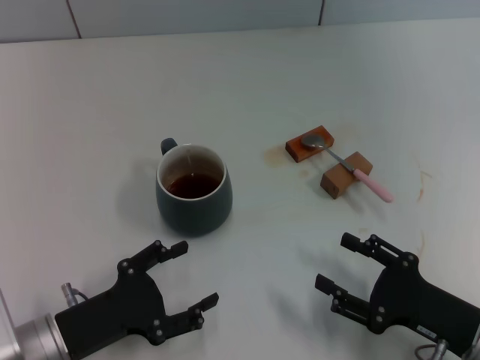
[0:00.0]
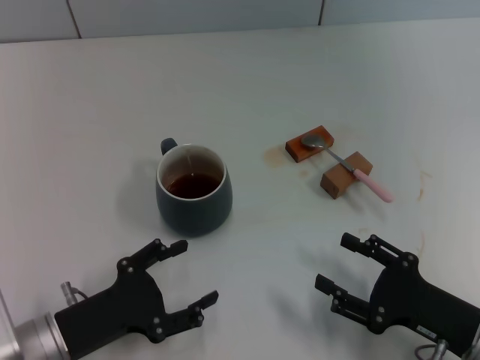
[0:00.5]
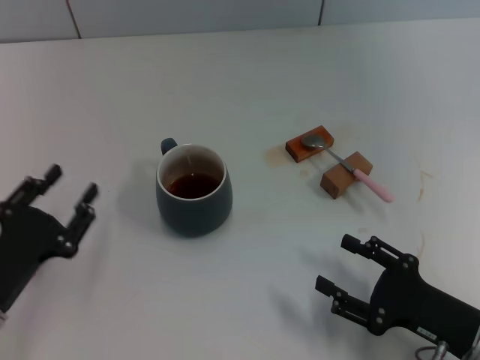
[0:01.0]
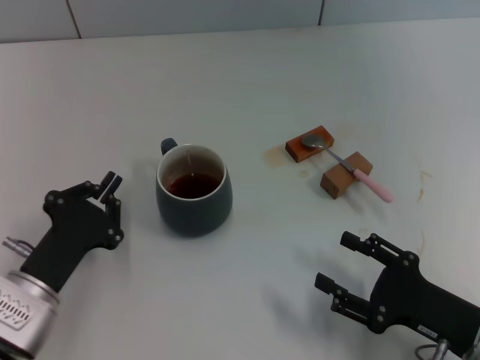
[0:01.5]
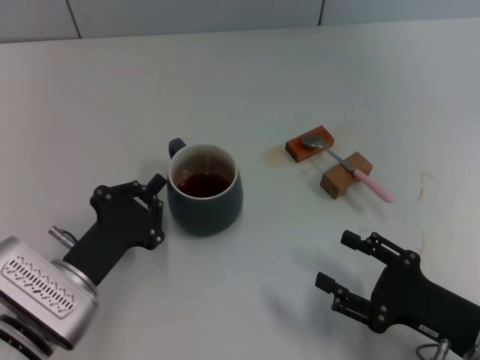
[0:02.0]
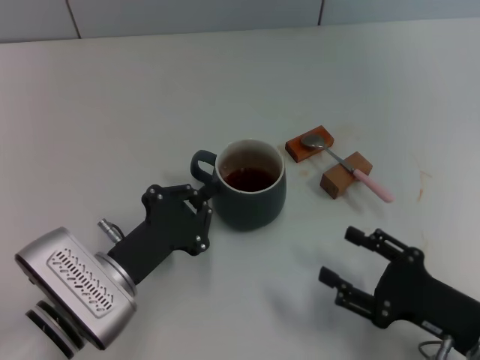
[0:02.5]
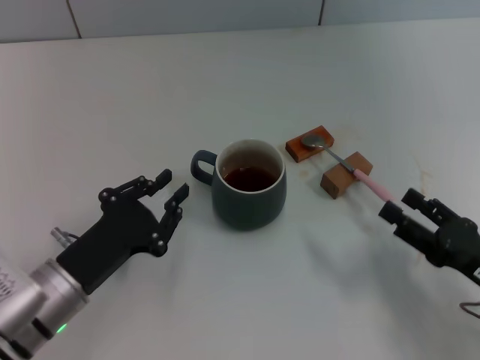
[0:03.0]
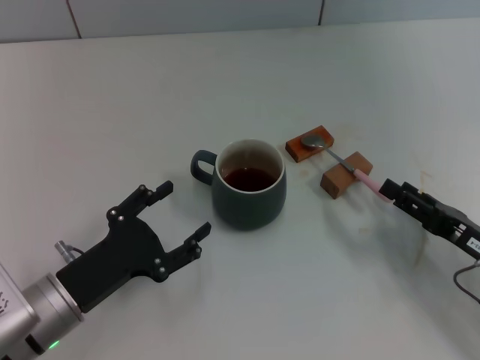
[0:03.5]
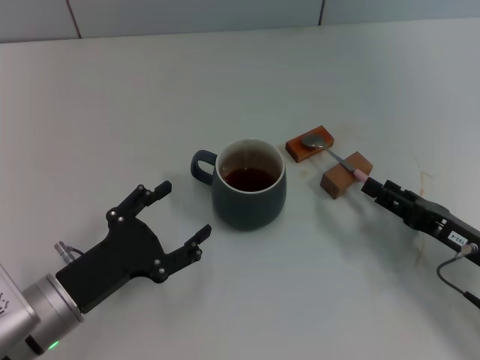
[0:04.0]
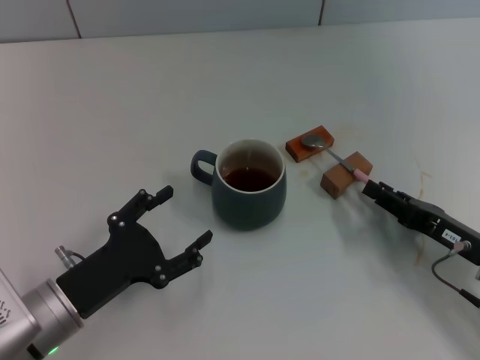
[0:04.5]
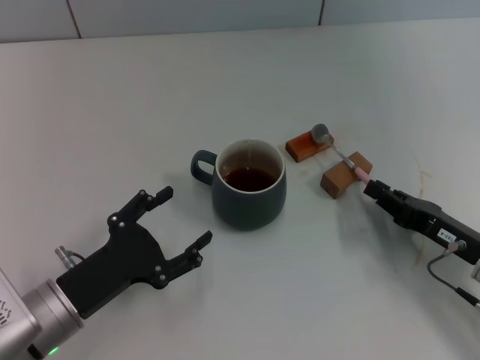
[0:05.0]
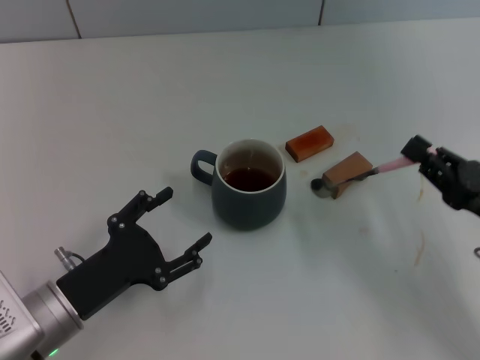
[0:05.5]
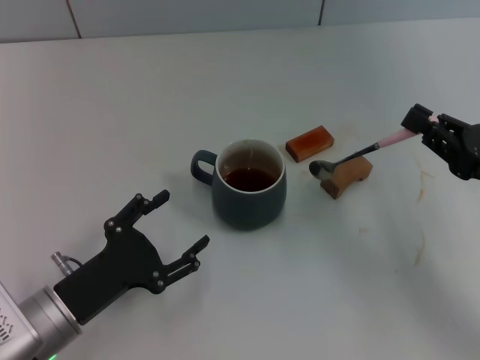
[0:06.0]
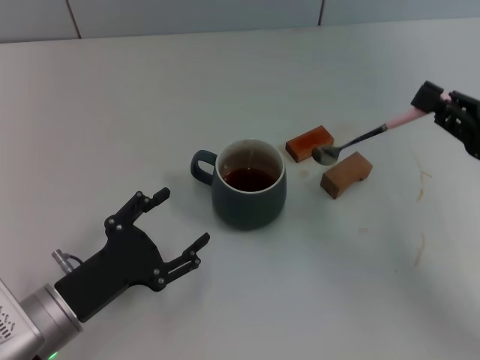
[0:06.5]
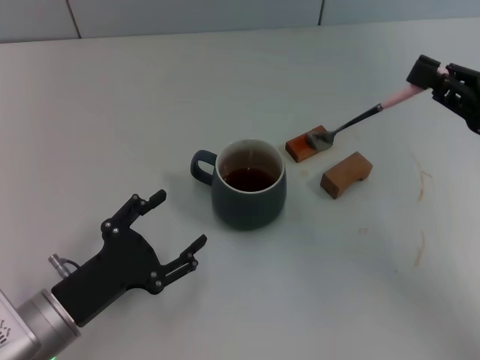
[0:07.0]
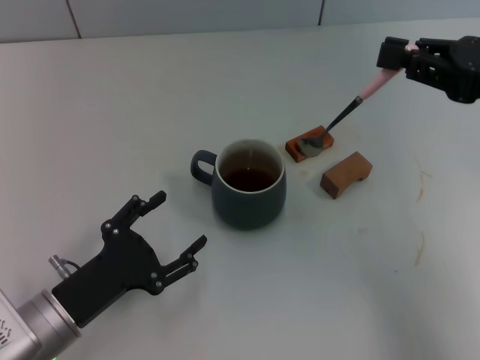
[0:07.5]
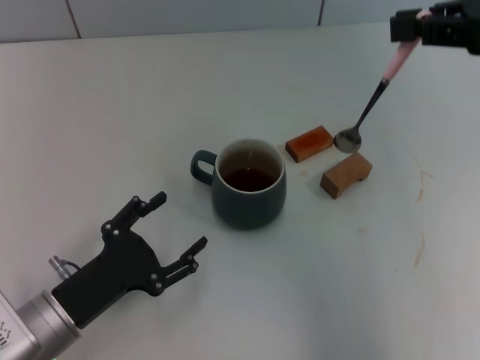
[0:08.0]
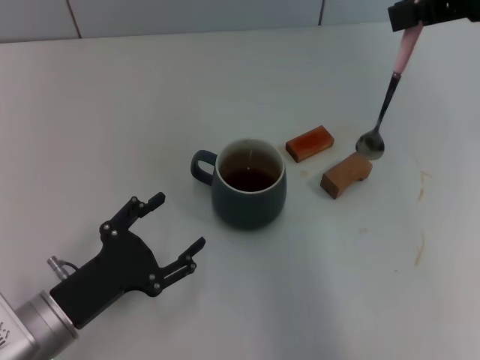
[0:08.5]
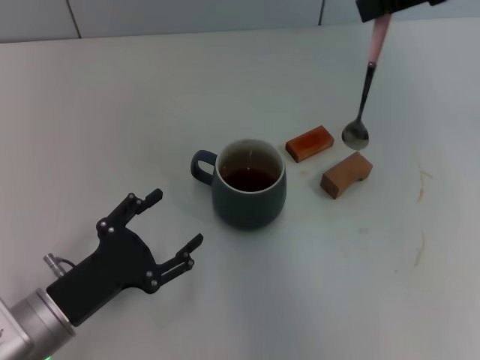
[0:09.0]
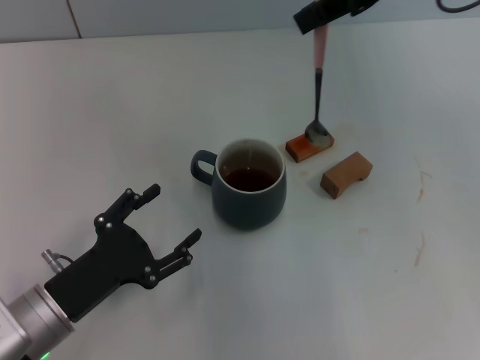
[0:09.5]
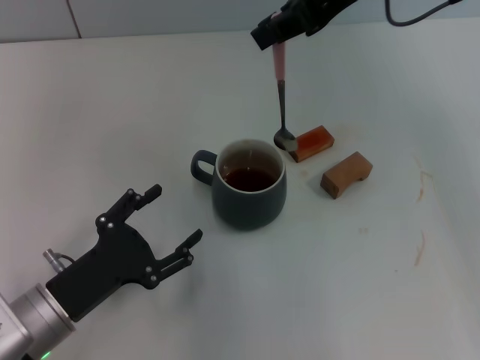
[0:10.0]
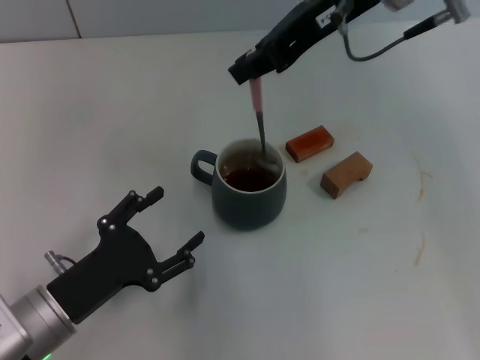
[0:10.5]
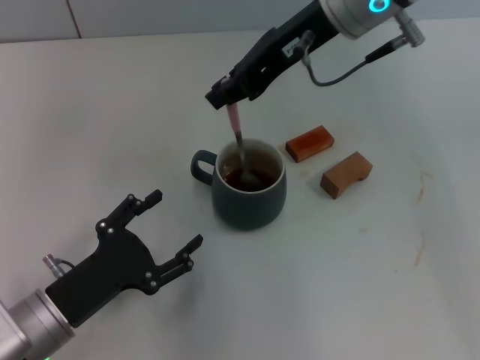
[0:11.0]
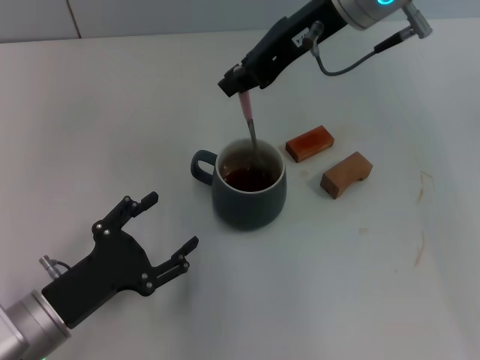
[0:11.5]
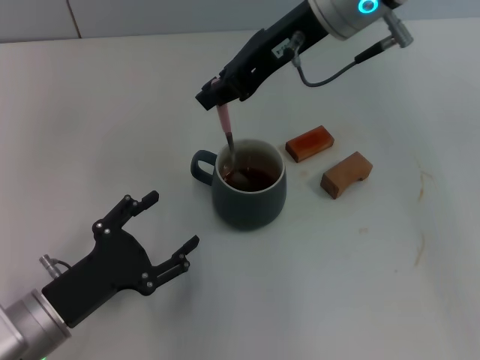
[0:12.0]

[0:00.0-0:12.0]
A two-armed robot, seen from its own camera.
Task of the whole recording: Move the grey cup to the center, lift the pink spoon, stir it three times in the cup, and put the spoon into the cup.
Step, 0:00.0 to 0:02.5: Move the cup with coffee to the center of view with the left gripper.
Step, 0:03.0 to 0:05.0: Pick up the spoon with the right gripper.
0:00.0 to 0:02.0: The left gripper closes up.
0:02.0 to 0:04.0: The right gripper goes approximately 5 cm forward; the left gripper opens.
0:04.0 to 0:06.0: The right gripper moves upward, approximately 10 cm, and closes.
0:06.0 to 0:08.0: The right gripper heads upward, covering some 20 cm.
0:08.0 to 0:10.0: The right gripper travels to the left and forward by about 15 cm.
0:10.0 to 0:12.0: The right gripper travels downward and to the left by some 10 cm.

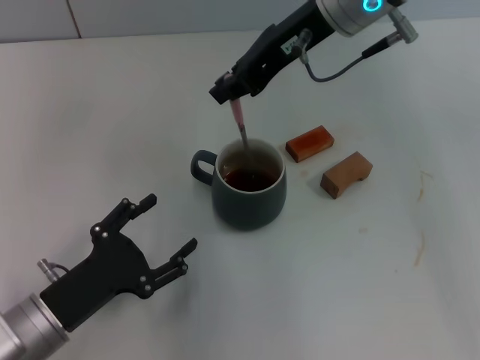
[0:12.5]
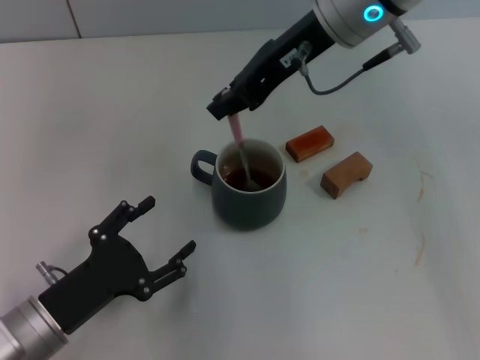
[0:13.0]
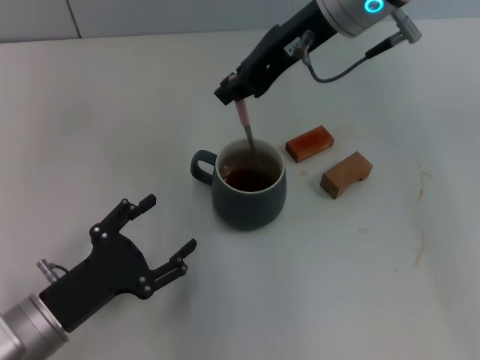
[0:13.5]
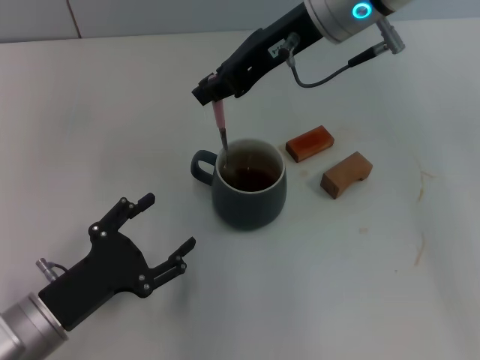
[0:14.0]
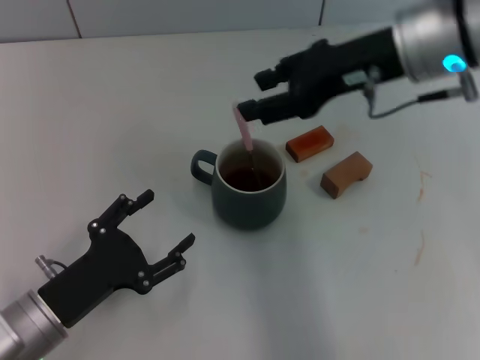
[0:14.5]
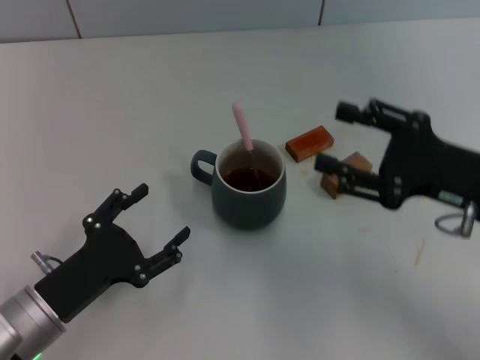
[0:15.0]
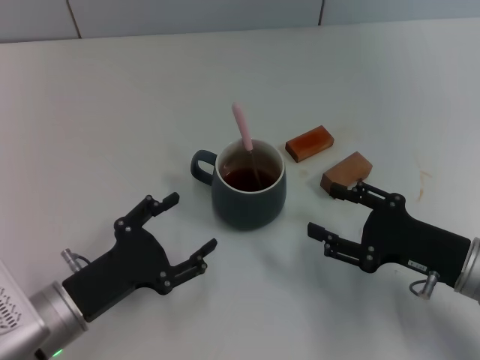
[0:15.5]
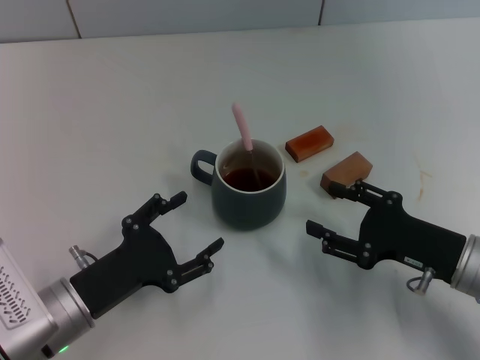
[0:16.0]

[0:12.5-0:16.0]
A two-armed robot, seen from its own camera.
Task of the whole recording: Move the grey cup to the center, lift the pink spoon, stir it three times in the cup, and put the spoon into the cup.
Step, 0:12.5 to 0:14.5: Stir the coffee in the cup with the right gripper.
0:12.5 to 0:14.5: The right gripper goes some 5 cm to the right.
0:14.5 to 0:16.0: The right gripper is displaced downward, backward and to the right by roughly 25 cm, and opens up.

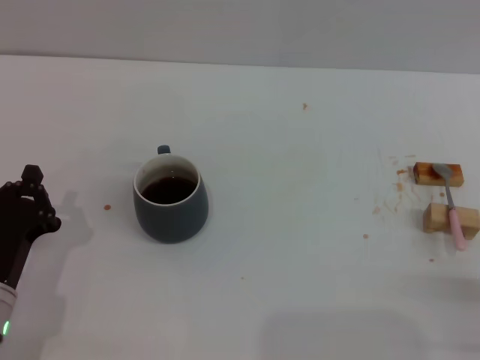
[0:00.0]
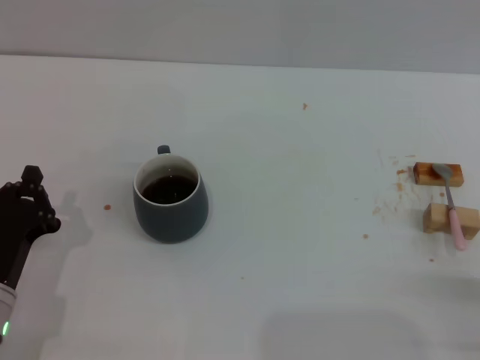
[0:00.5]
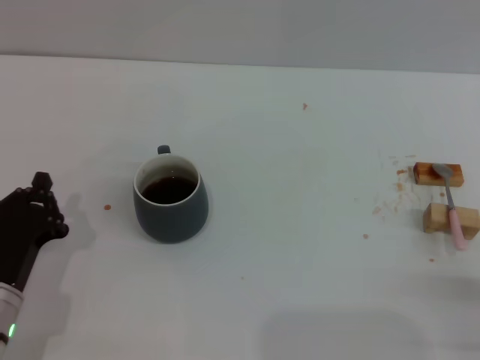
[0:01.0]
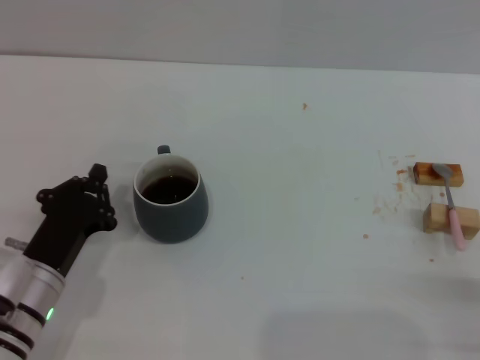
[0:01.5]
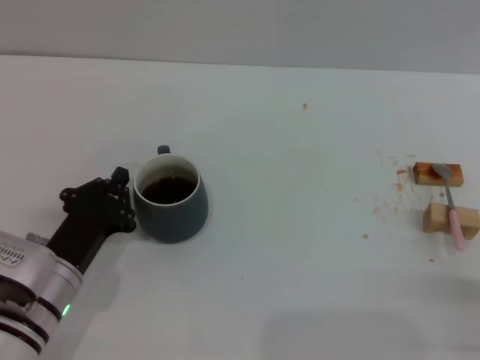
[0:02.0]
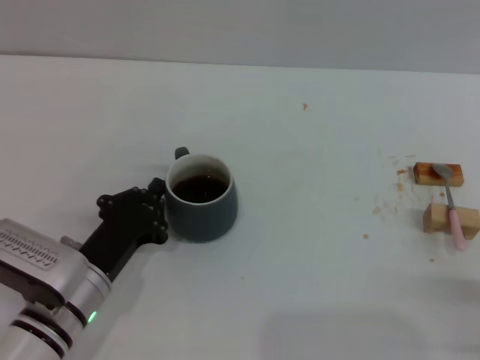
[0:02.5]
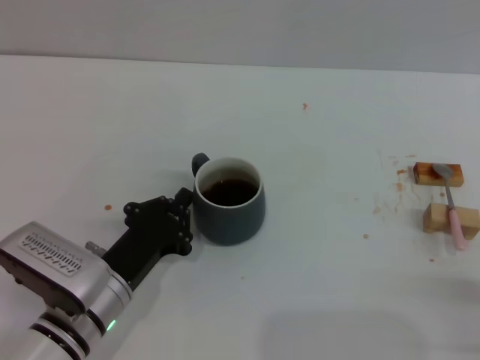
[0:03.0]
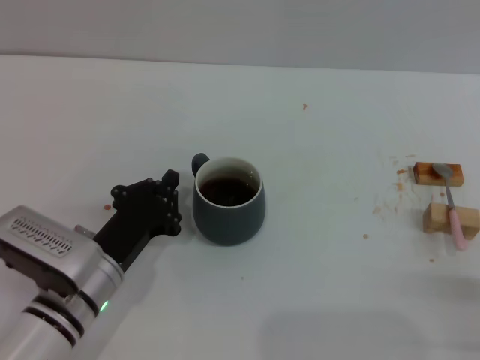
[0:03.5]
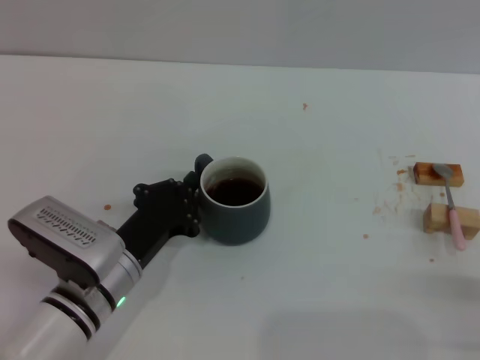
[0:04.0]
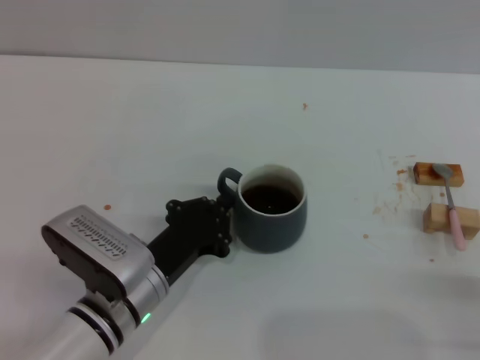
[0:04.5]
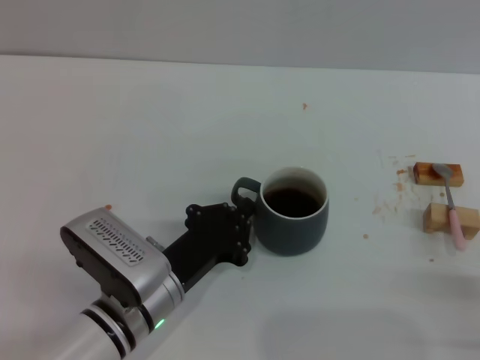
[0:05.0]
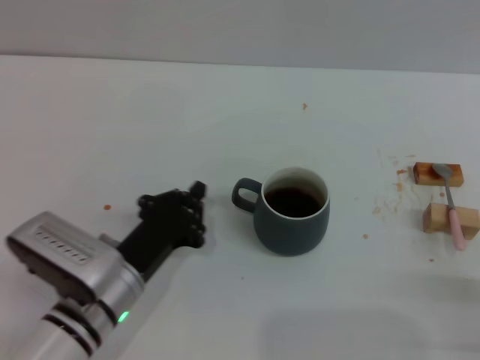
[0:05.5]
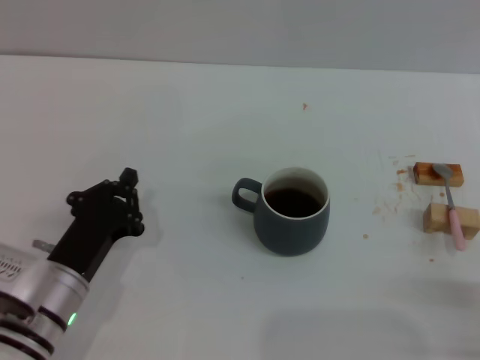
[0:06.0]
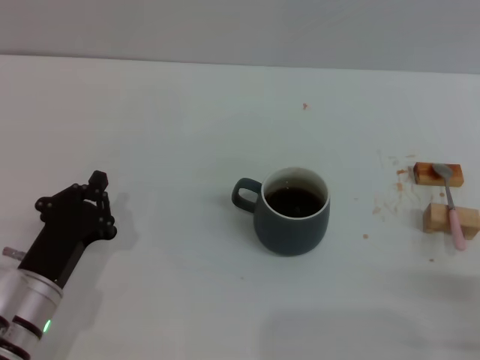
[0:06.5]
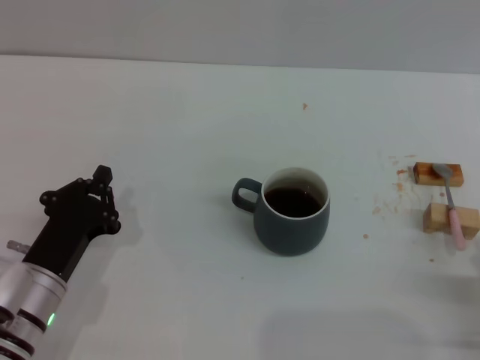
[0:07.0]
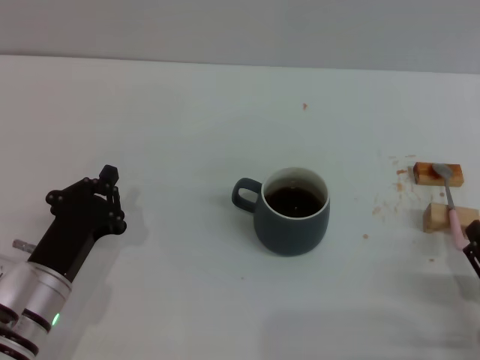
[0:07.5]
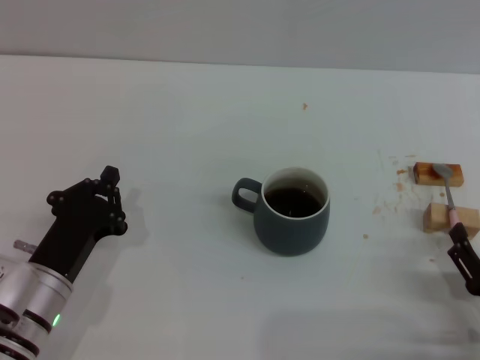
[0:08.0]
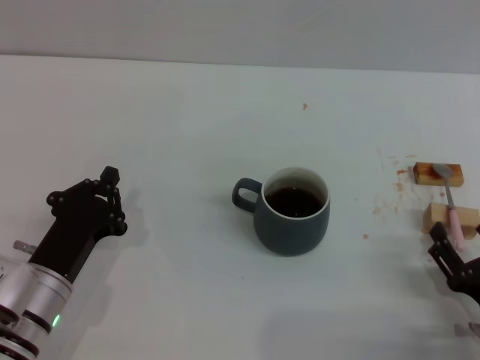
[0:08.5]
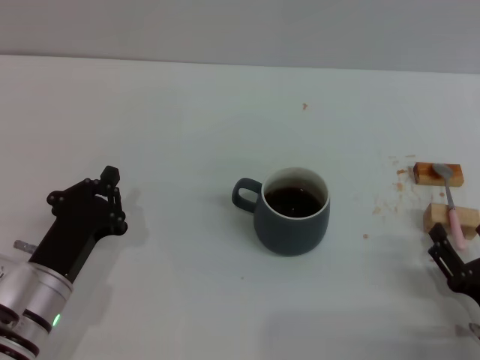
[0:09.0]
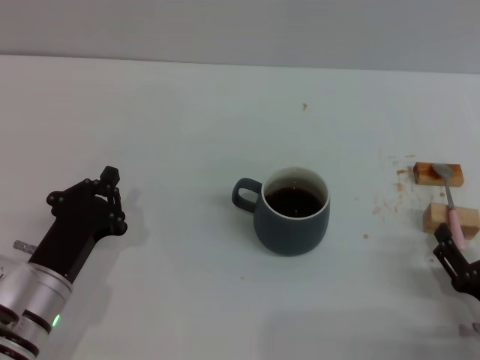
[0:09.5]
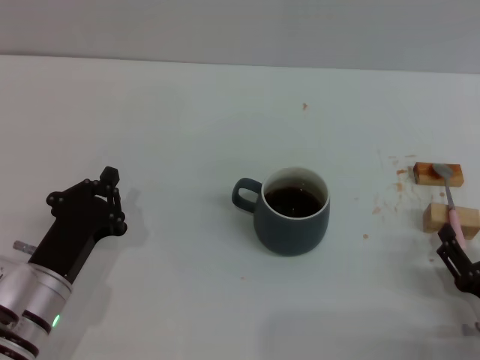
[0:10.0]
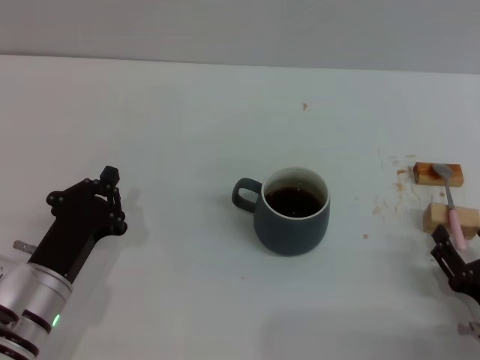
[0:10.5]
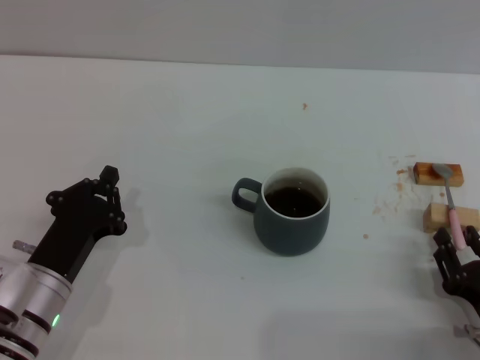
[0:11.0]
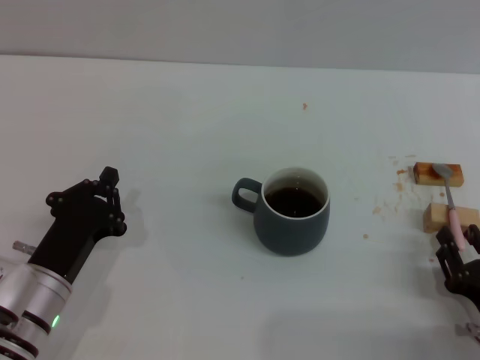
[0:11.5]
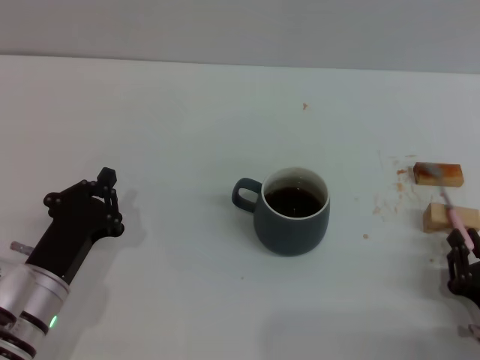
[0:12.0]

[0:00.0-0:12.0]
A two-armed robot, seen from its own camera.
Task of the whole recording: Move the grey cup to the center, lift the pink spoon, stir it three times in the cup, and put the spoon into the cup.
Step, 0:00.0 to 0:05.5: Move the cup with coffee to the center of view with the left gripper.
0:00.0 to 0:02.0: The left gripper changes place by about 5 cm.
0:02.0 to 0:04.0: The left gripper moves roughly 5 cm.
0:04.0 to 0:06.0: There are only small adjustments of the grippers.
0:06.0 to 0:08.0: The right gripper ends up some 5 cm from where it was.
0:08.0 to 0:10.0: The grippers move only a little.
0:10.0 to 0:12.0: The right gripper closes.
